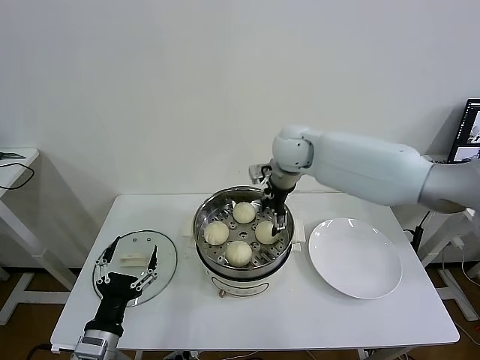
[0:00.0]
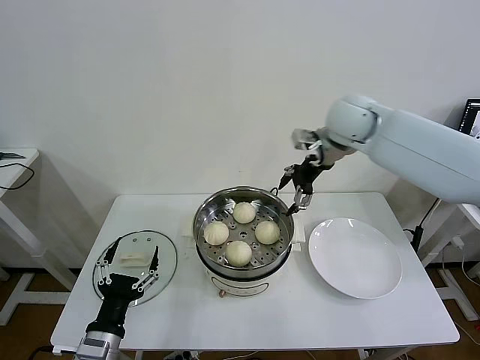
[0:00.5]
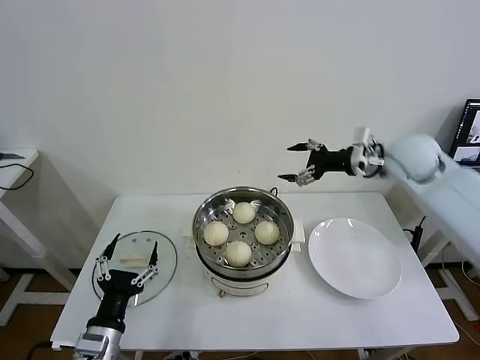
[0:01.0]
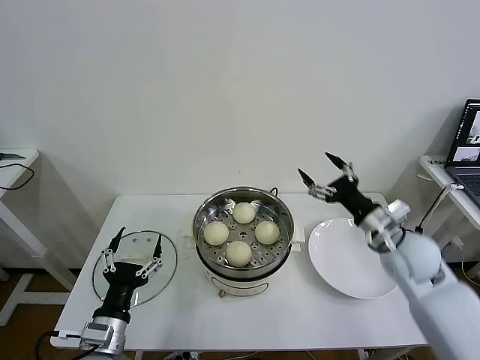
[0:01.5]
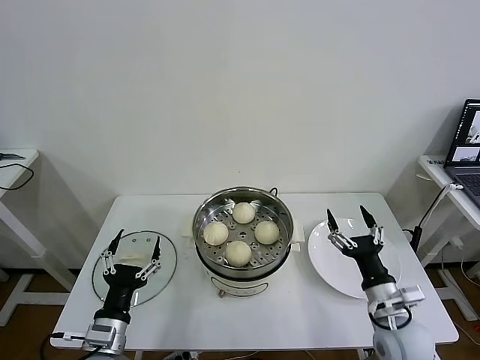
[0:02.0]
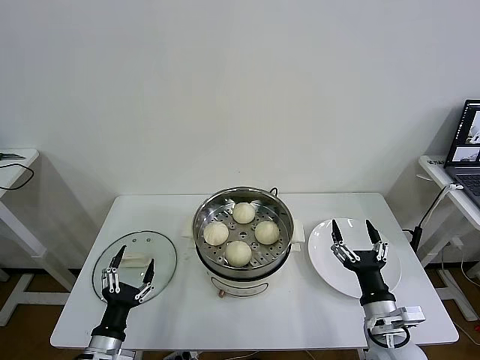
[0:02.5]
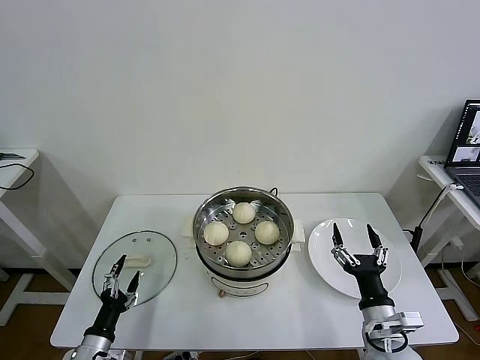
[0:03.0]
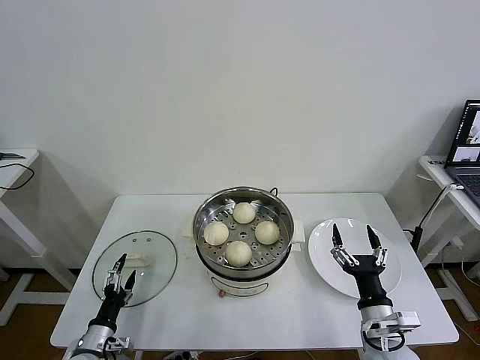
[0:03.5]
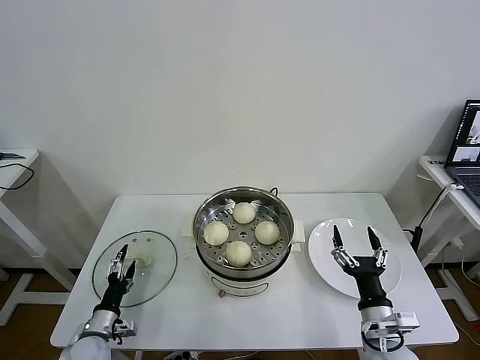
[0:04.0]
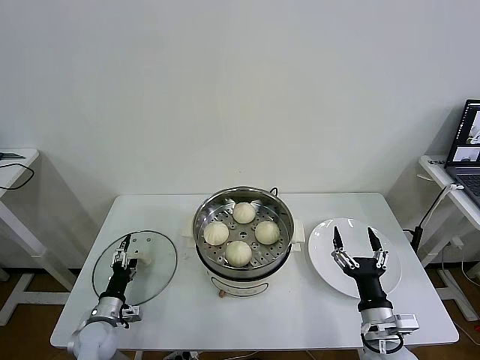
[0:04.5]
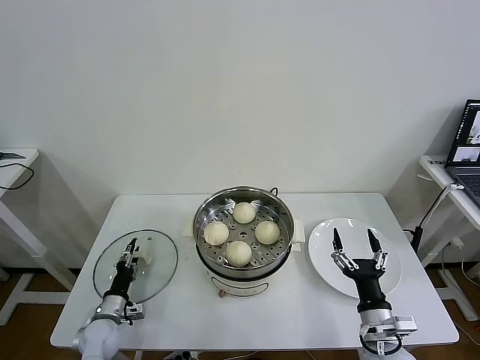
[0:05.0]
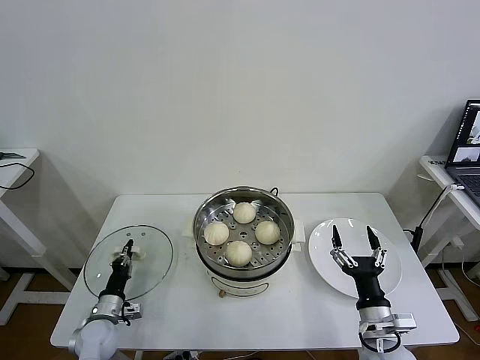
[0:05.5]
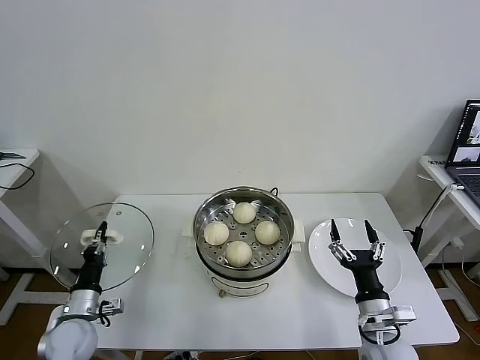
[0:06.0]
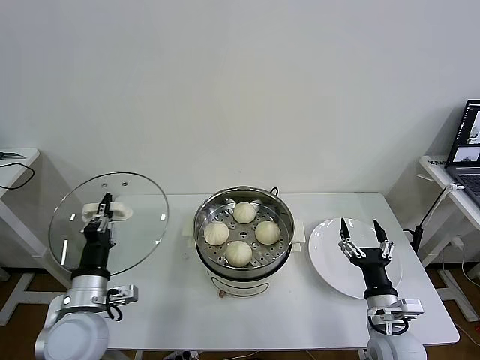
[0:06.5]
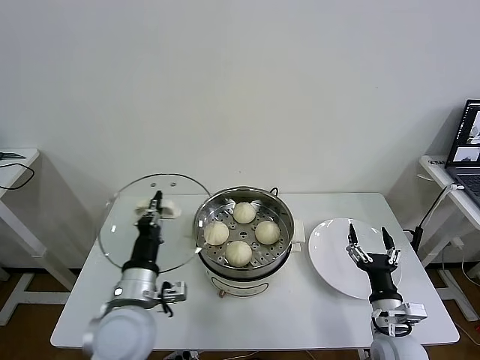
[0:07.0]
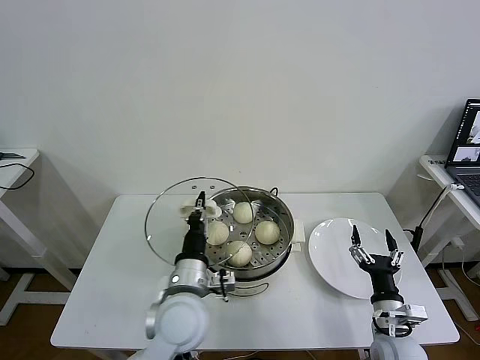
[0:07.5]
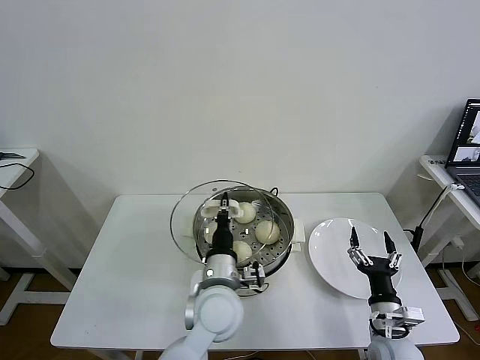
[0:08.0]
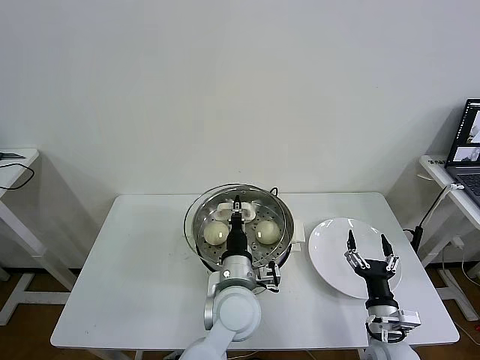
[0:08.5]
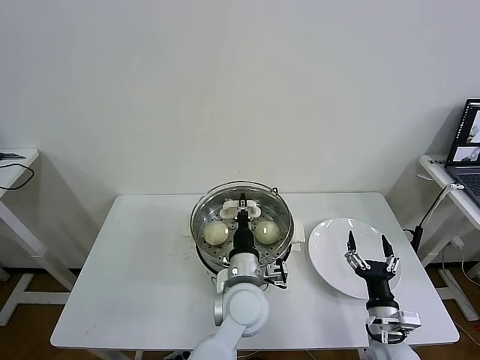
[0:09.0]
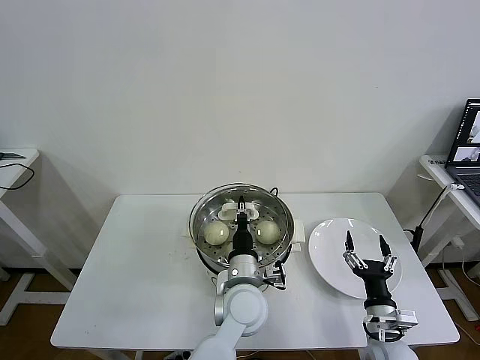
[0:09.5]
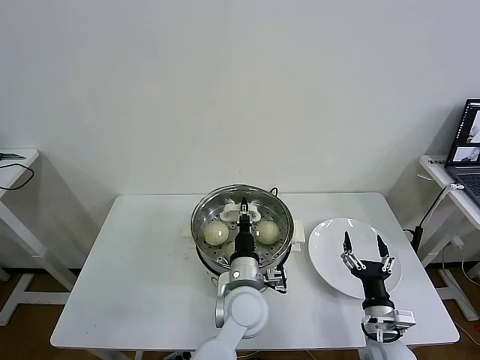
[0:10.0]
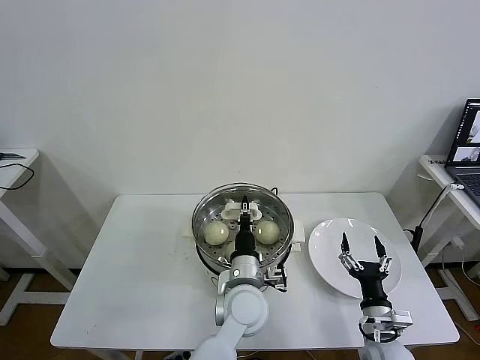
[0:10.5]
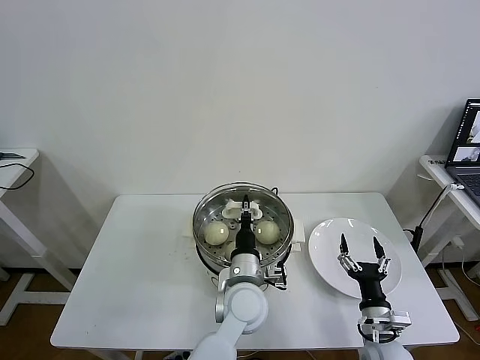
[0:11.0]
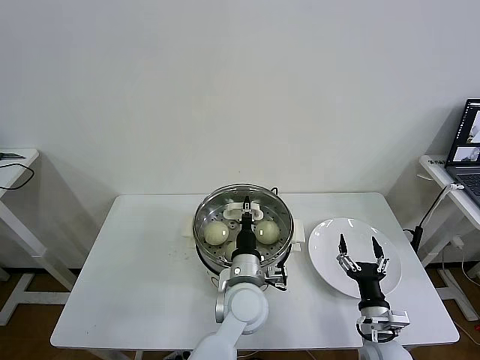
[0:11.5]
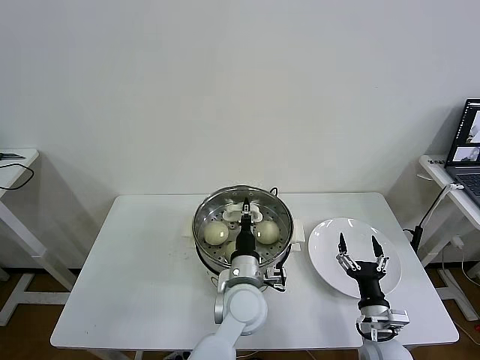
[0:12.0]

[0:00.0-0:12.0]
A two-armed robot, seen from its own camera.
Task of the whole recording: take steamed baozi put them in steamer then cover it.
Step, 0:00.0 to 0:05.0: Grasp the pot lid with left gripper.
0:00.0 to 0:02.0: The right gripper is displaced backward, downward and to the right by approximately 40 cm.
0:02.0 to 0:04.0: The left gripper shifts some 20 cm downward, to the left and forward. Meanwhile the right gripper shifts by roughly 5 cm.
0:04.0 to 0:06.0: The left gripper shifts about 5 cm upward, and closes up.
0:06.0 to 0:08.0: The right gripper ends up some 5 cm from where it was, while the left gripper is displaced to the right and upward by approximately 35 cm.
0:08.0 to 0:10.0: The left gripper moves to the right, approximately 5 cm.
0:10.0 to 0:12.0: The two grippers keep their place.

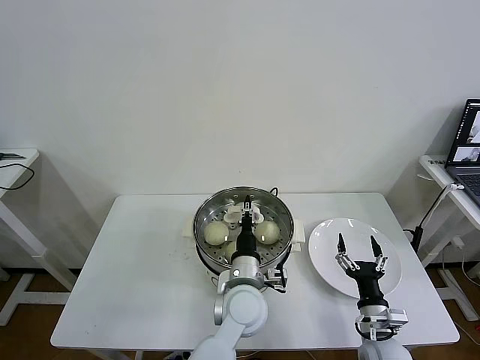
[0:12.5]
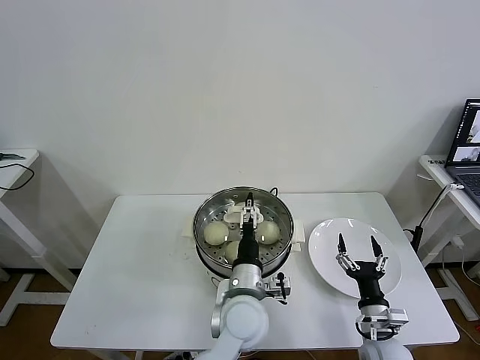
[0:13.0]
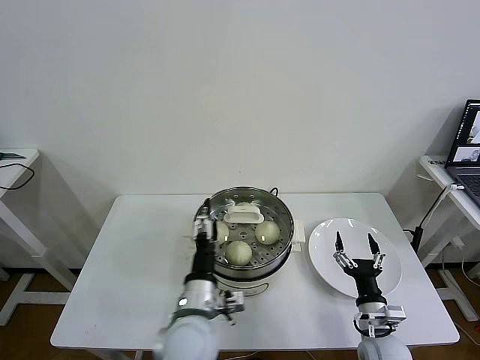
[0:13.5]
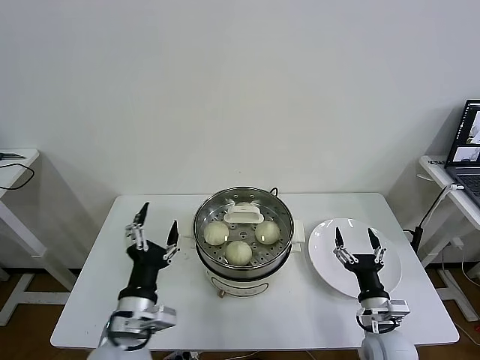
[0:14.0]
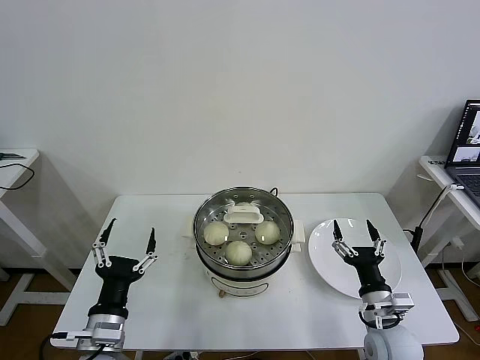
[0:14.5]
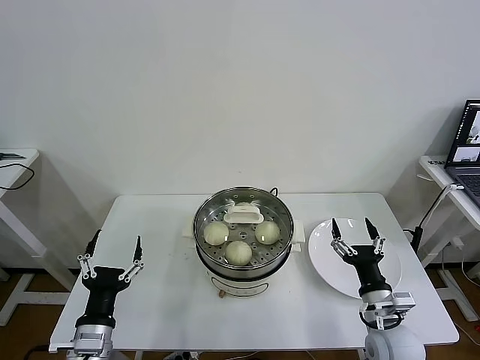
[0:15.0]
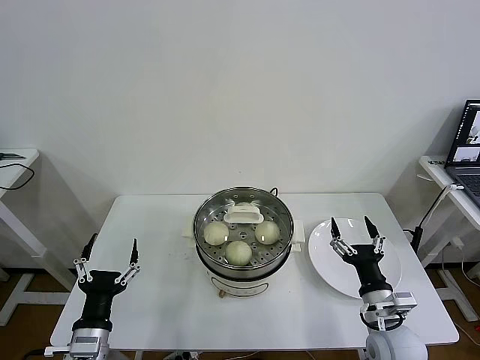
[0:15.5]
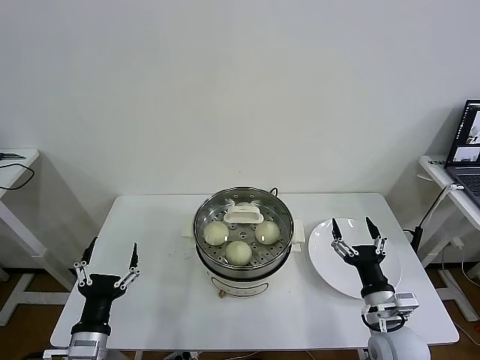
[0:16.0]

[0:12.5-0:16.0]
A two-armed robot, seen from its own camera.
Task of the whole recording: take steamed baozi put them in steamer then cover it.
0:12.5 to 0:14.5: The right gripper shifts by roughly 5 cm. The left gripper shifts roughly 30 cm to the left and backward, and opens its fingers.
0:14.5 to 0:16.0: The left gripper shifts by approximately 5 cm.
